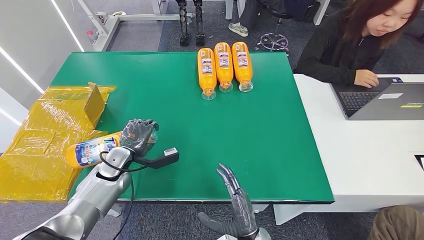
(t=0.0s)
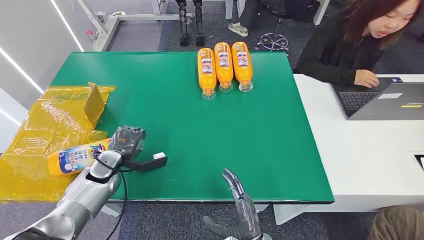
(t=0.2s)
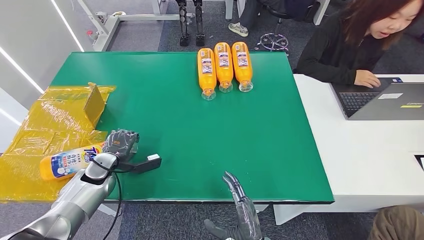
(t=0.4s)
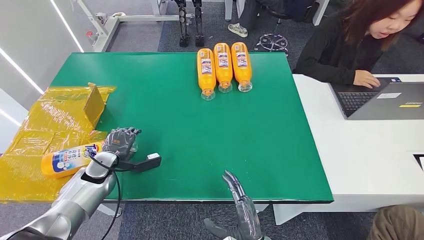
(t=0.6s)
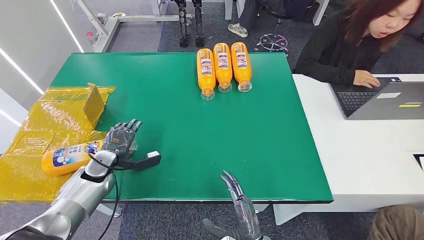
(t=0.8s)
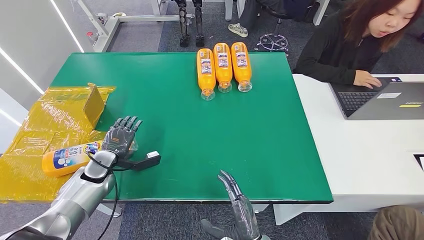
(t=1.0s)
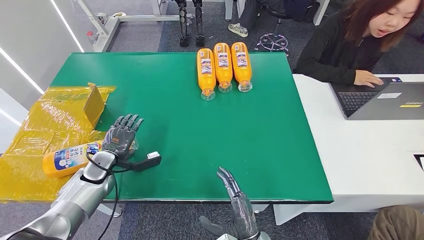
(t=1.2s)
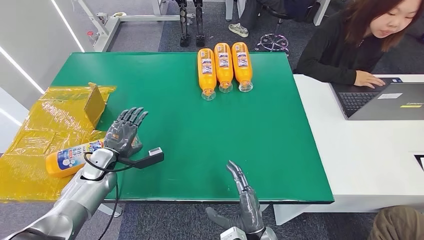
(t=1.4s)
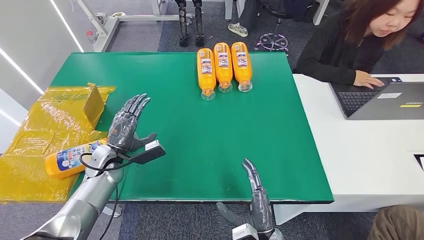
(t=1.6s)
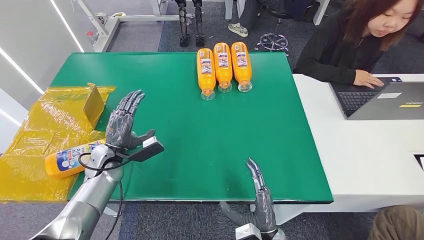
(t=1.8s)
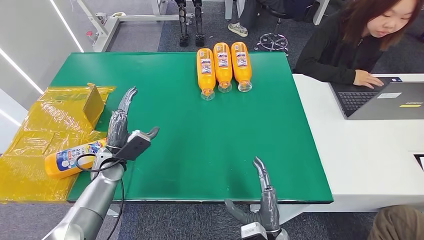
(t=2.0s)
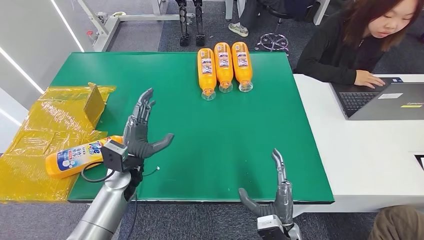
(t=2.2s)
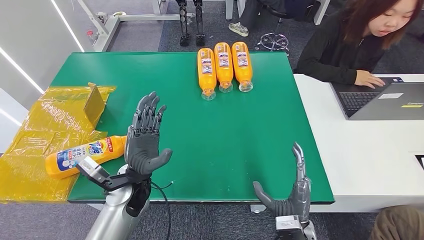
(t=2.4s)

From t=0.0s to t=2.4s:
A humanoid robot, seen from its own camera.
Step, from t=0.0s to t=2.4s: Turn the bottle to the front side.
From t=0.0s to t=1.2s: The left hand moves to the left, approximately 5 cm.
From t=1.2s to t=2.4s: The left hand shifts roughly 20 cm to the right. Meanwhile the right hand heads to the right, covering approximately 10 cm.
